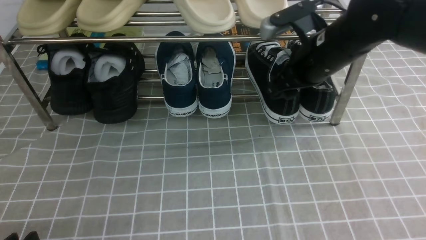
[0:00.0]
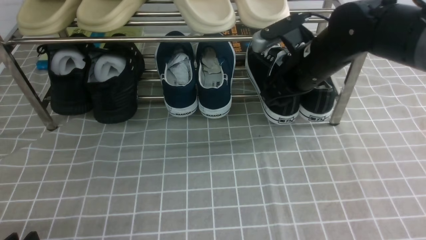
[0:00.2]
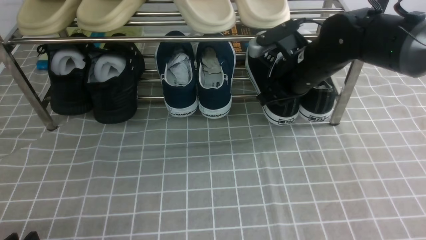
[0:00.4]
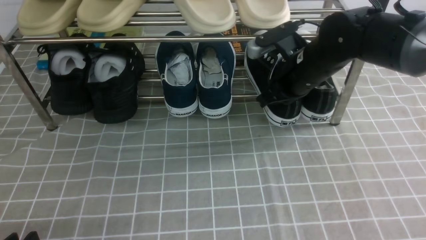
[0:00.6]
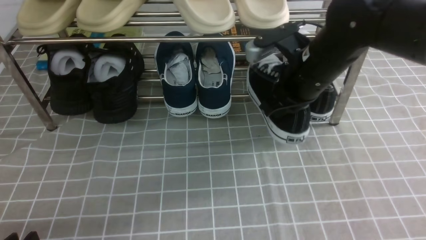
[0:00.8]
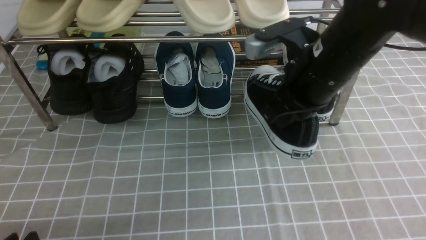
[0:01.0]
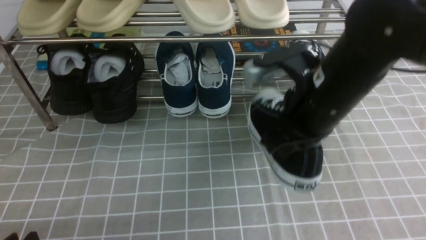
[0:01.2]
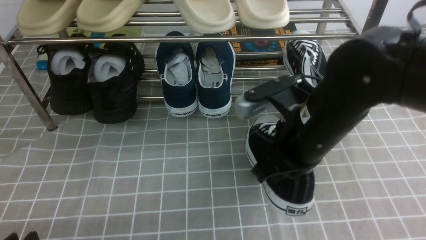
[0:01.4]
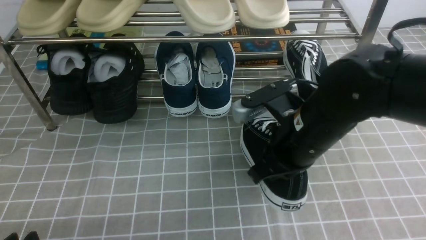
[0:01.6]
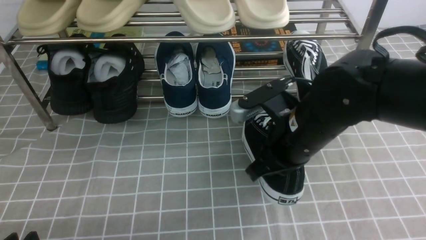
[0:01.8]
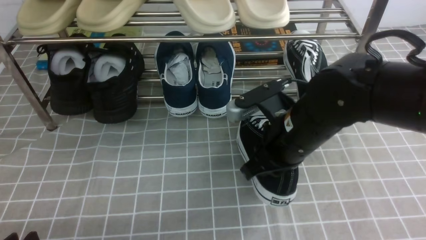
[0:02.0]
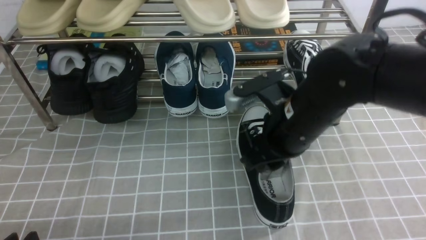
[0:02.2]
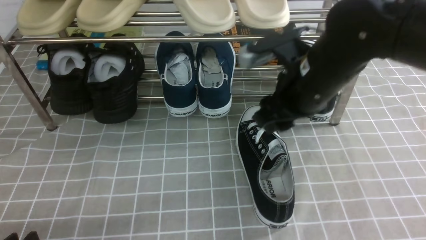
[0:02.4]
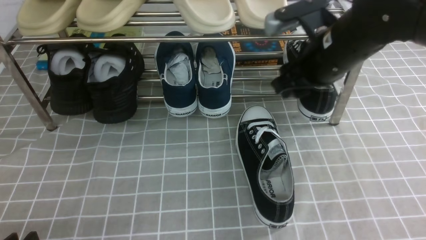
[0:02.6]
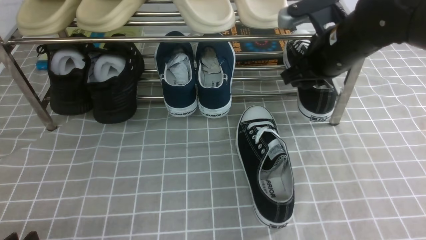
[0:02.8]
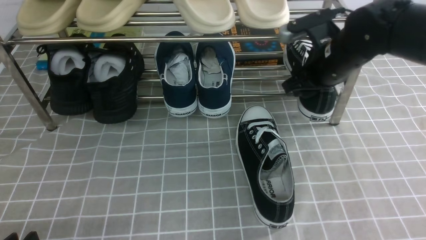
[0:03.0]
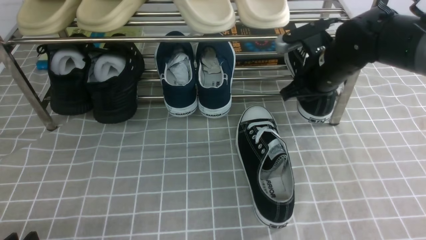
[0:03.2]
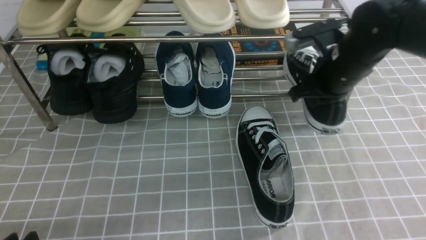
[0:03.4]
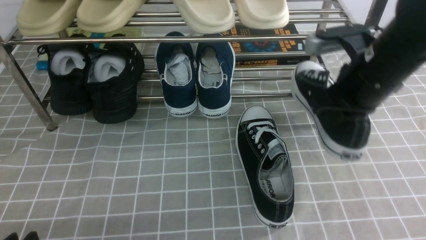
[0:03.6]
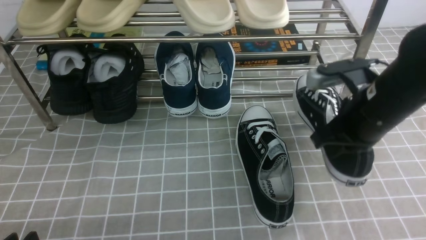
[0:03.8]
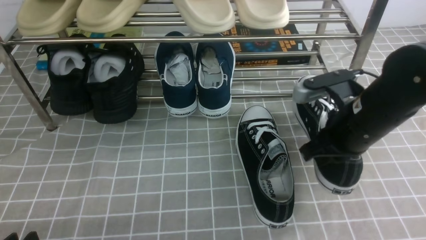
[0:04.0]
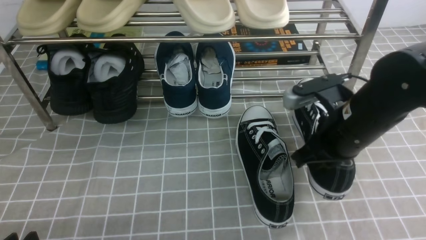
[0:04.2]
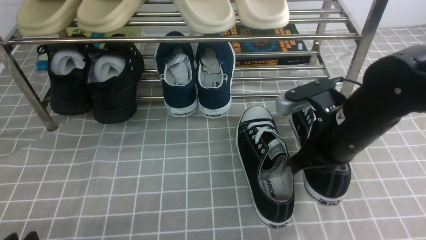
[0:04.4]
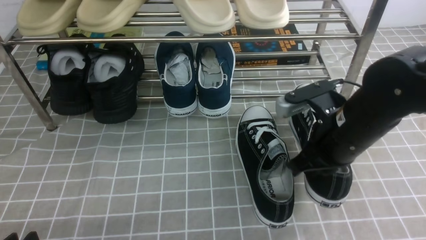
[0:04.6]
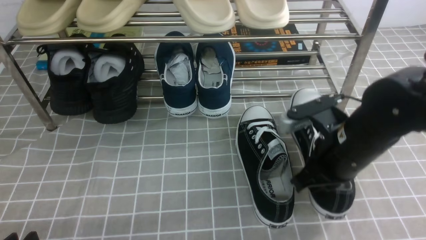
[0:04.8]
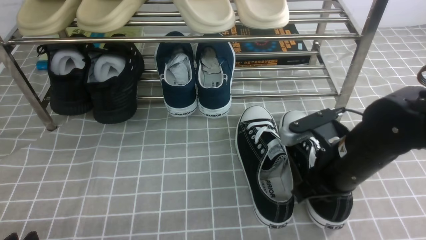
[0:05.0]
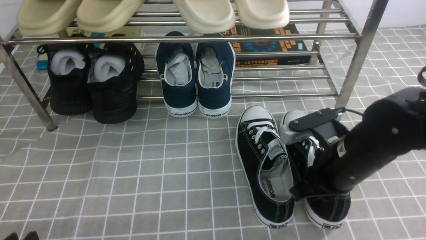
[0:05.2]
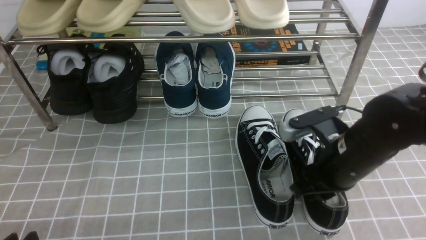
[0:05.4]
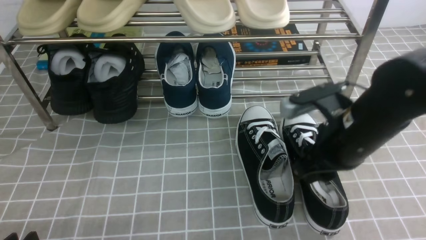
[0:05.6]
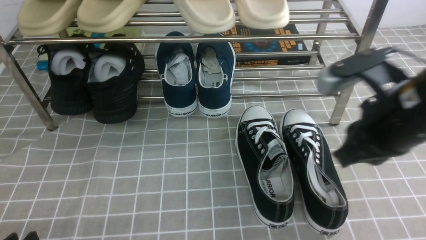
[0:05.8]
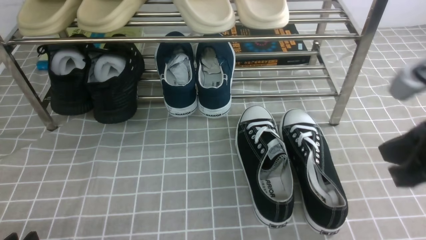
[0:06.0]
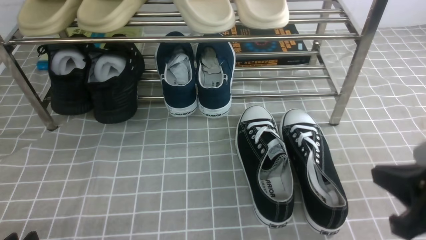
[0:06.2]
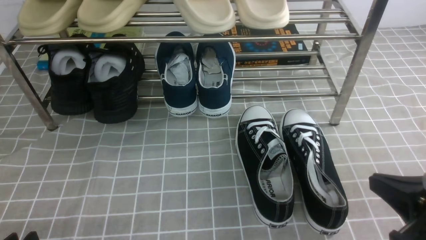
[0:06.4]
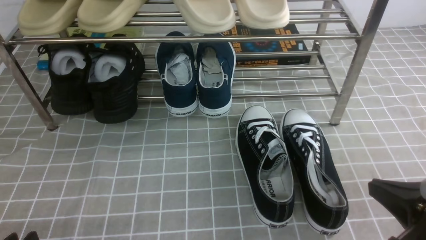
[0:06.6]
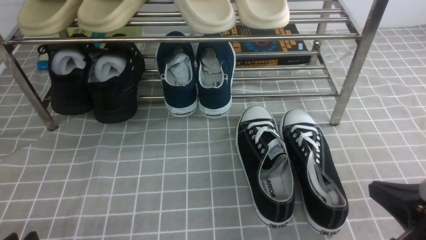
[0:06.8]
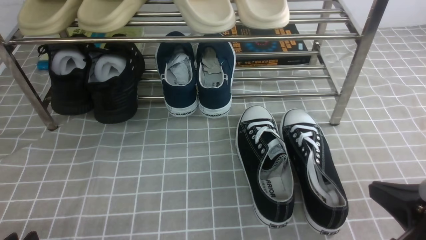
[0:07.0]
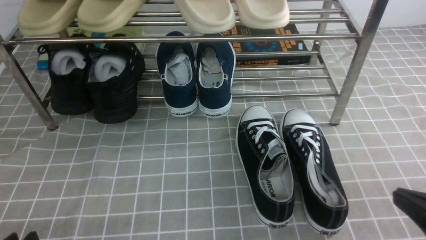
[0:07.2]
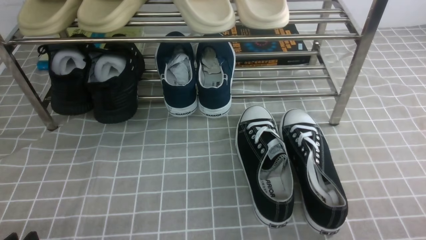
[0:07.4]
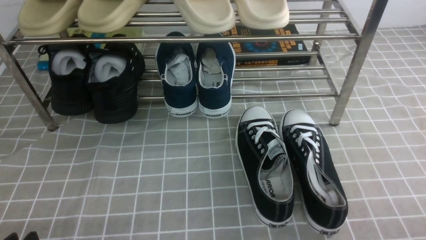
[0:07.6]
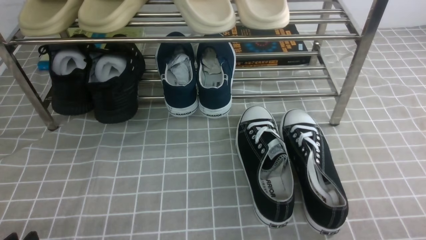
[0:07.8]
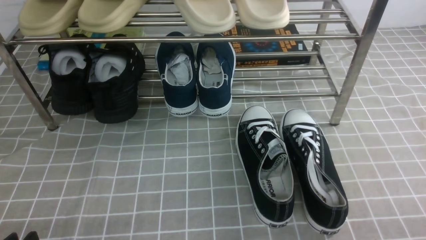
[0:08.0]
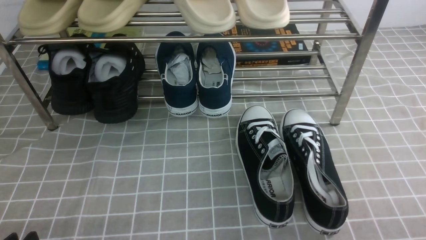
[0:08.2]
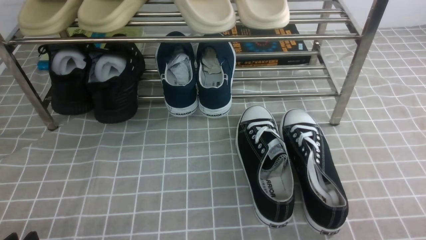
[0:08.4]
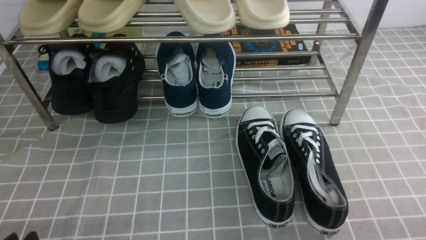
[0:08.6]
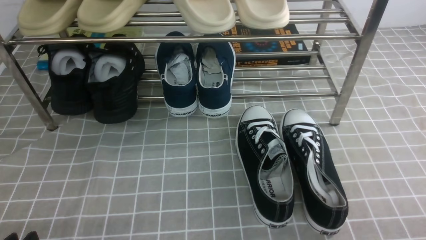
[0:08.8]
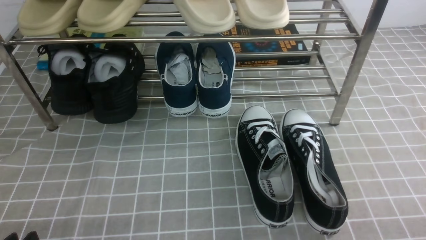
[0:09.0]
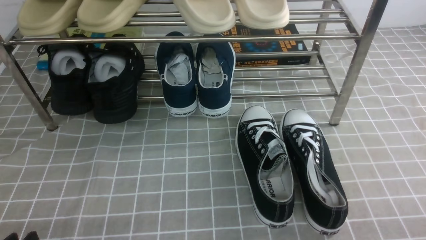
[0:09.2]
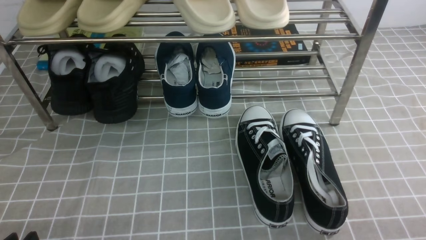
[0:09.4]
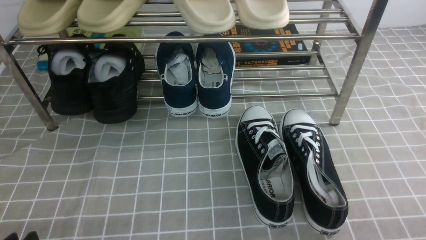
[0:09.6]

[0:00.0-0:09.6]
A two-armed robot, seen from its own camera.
Step, 0:00.6 to 0:02.2: use the right arm to take out the clamped shoe from the shoe rack and put it down.
Step, 0:02.4 to 0:03.2: use the right arm to clamp a shoe on the right side of the shoe rack.
Step, 0:03.4 to 0:05.6: use the right arm to take out the clamped shoe from the shoe rack and put it down.
0:00.0 to 0:01.6: The right gripper goes some 10 cm backward, and closes its fingers.
0:01.6 to 0:03.2: The right gripper shifts approximately 15 cm forward and to the right, and opens and closes again.
0:03.2 to 0:04.8: The right gripper heads backward, covering about 15 cm.
0:04.8 to 0:06.4: The right gripper shifts roughly 15 cm backward and to the right, and opens and closes again.
0:06.4 to 0:08.0: The right gripper shifts roughly 10 cm downward, to the right and backward.
0:08.0 to 0:09.6: Both grippers stay about where they are.
